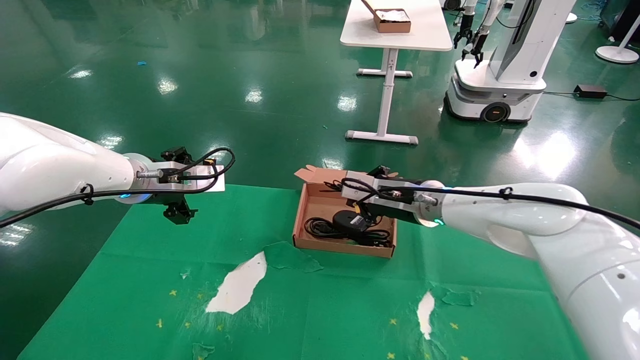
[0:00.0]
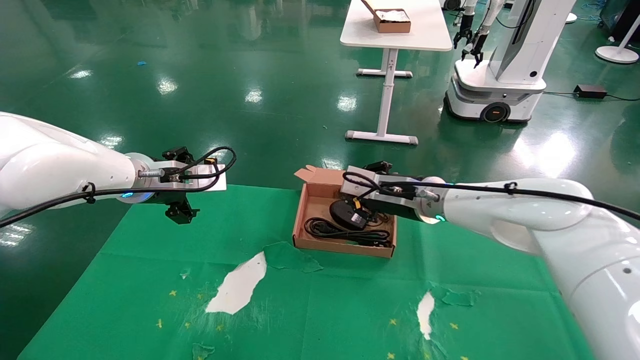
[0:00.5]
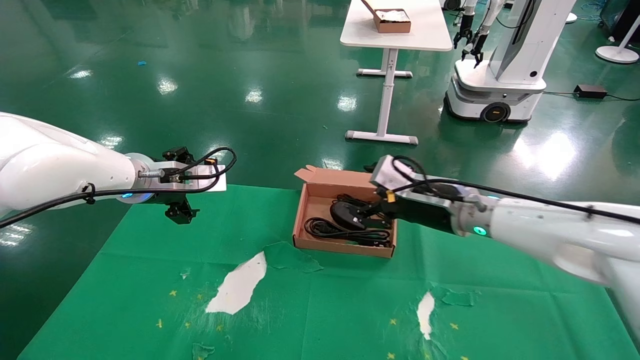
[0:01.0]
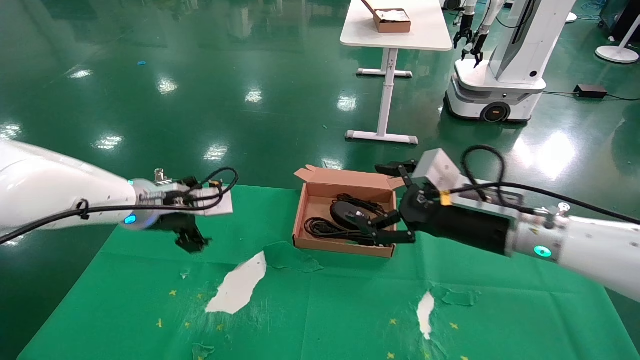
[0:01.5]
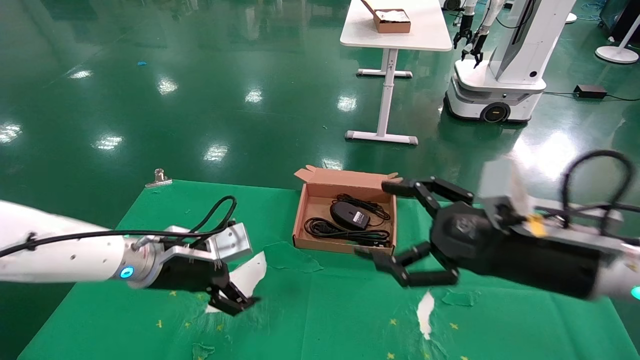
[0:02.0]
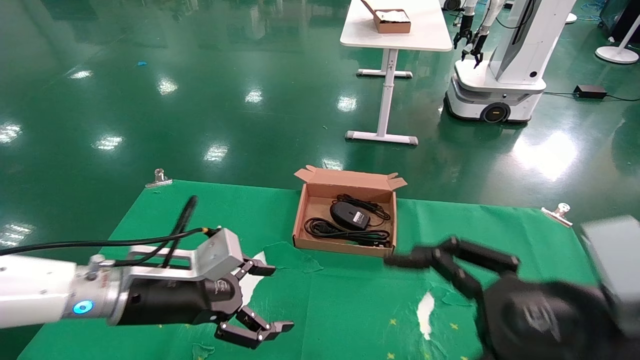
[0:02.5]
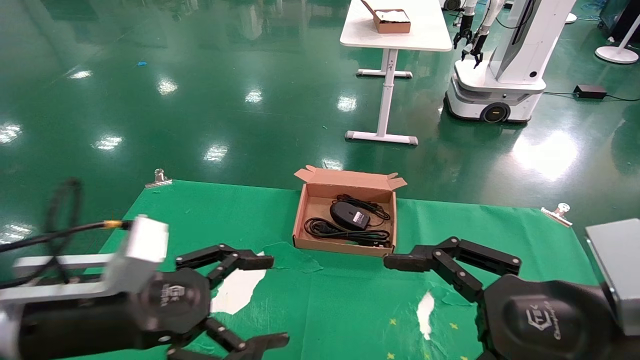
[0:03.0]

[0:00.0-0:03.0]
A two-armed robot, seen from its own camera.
0:00.0 to 0:01.5: The right gripper heads backward and to the right, covering approximately 15 cm, and opens up.
0:01.5 to 0:03.0: Both grippers travel together backward, roughly 20 cm.
